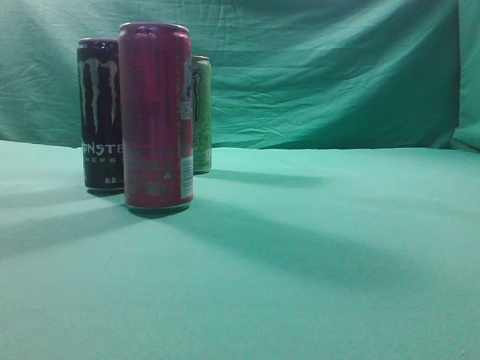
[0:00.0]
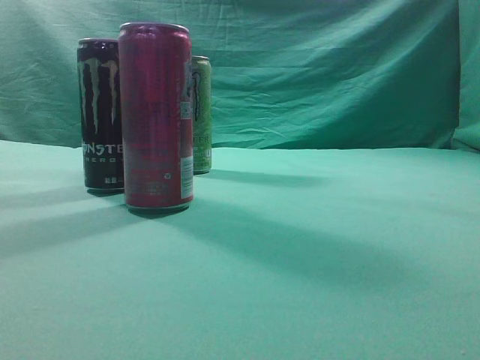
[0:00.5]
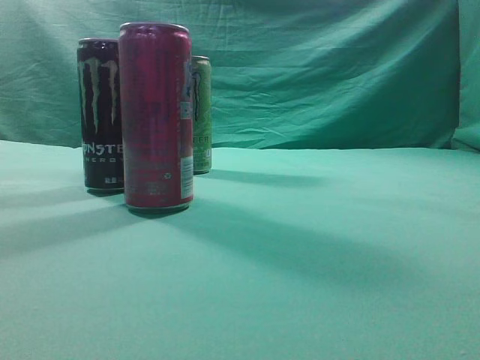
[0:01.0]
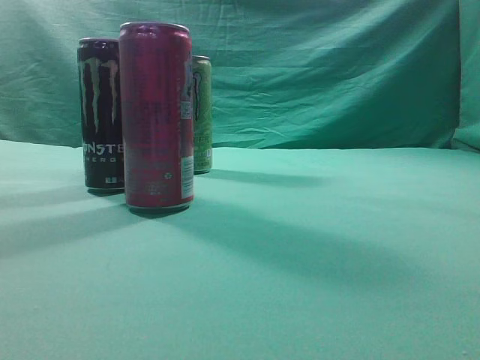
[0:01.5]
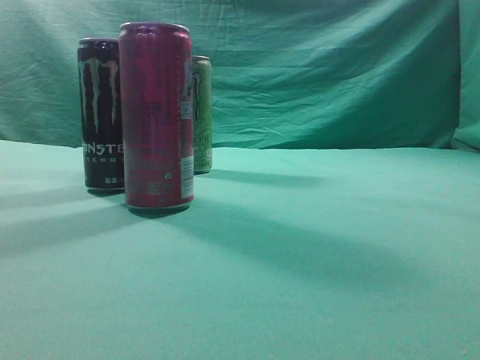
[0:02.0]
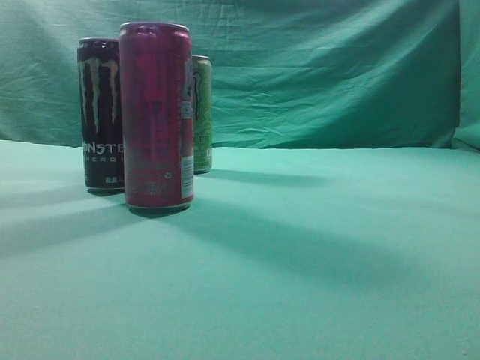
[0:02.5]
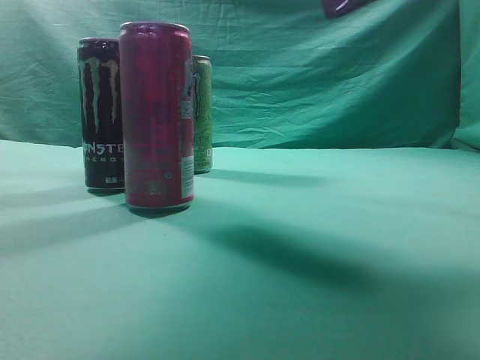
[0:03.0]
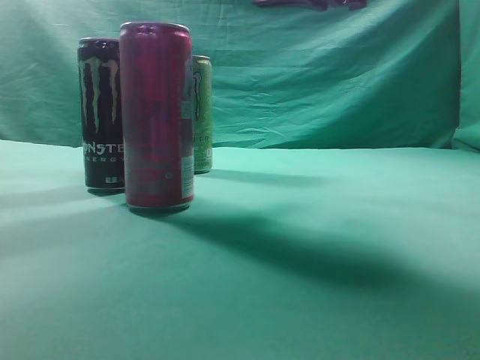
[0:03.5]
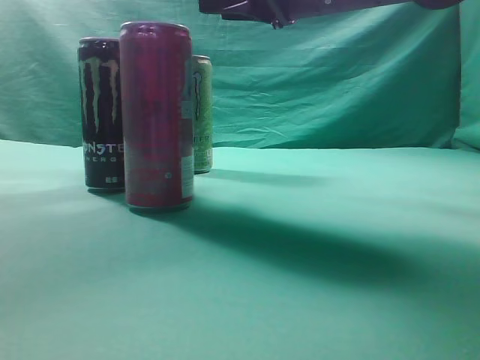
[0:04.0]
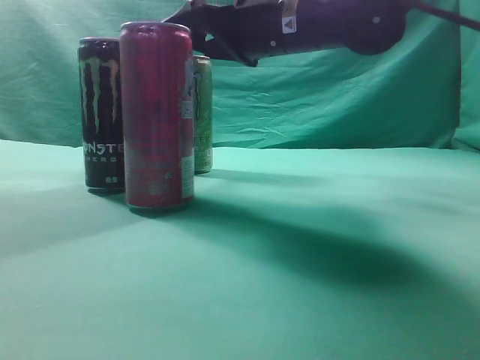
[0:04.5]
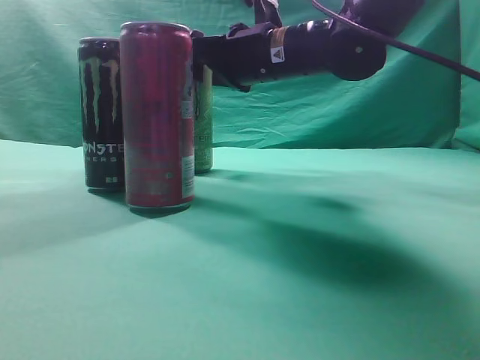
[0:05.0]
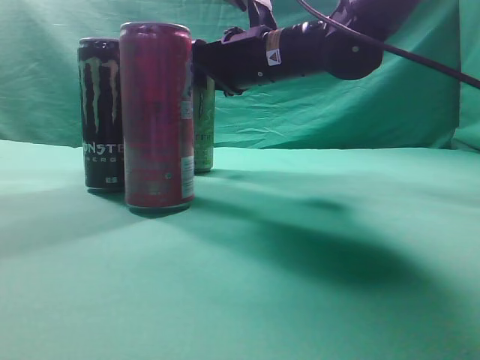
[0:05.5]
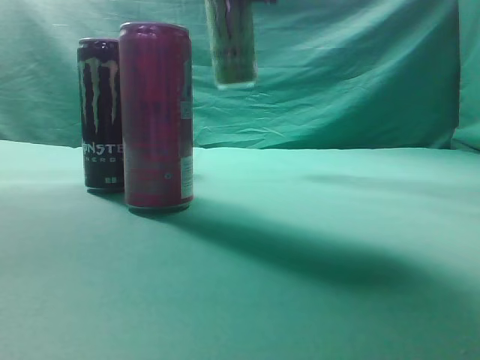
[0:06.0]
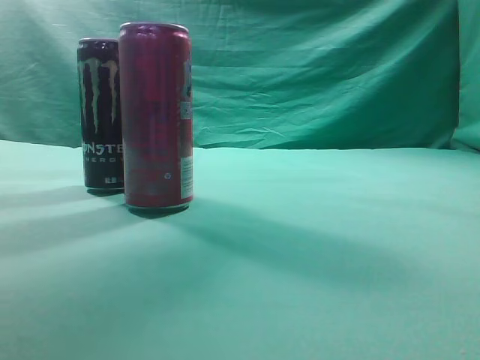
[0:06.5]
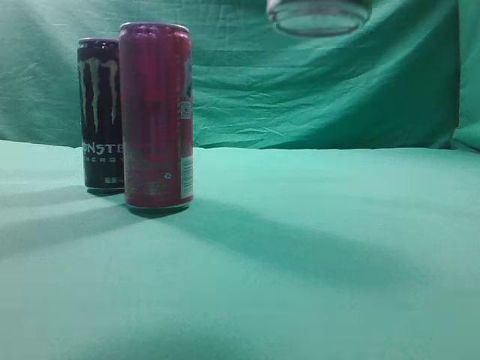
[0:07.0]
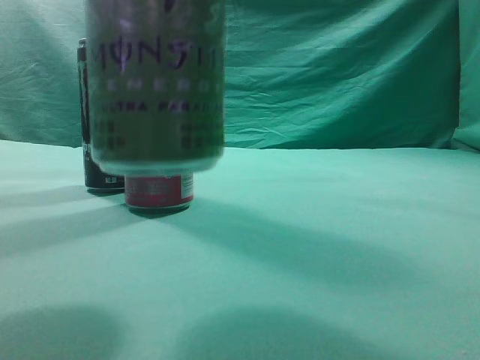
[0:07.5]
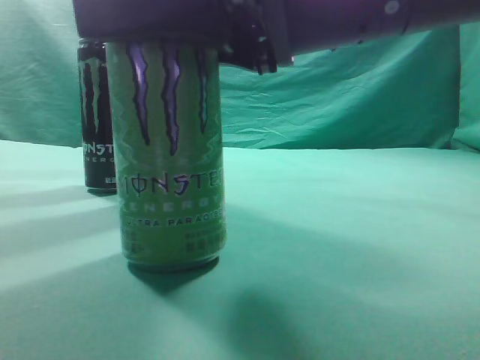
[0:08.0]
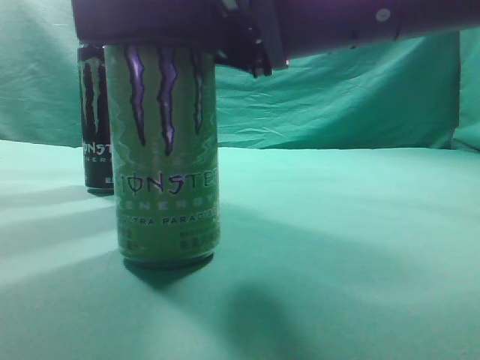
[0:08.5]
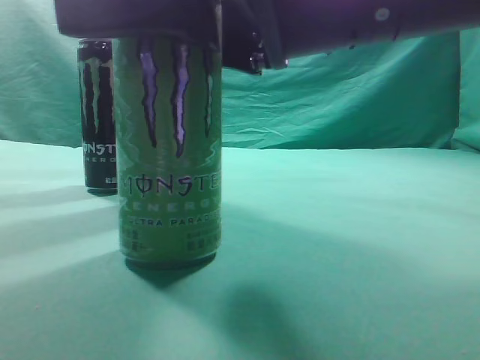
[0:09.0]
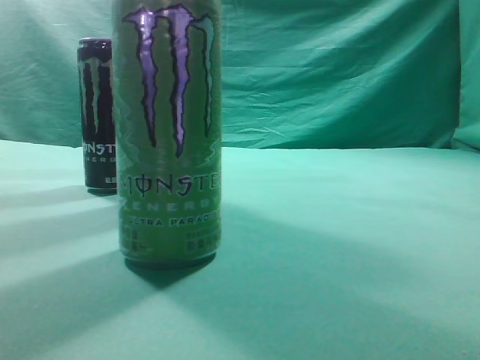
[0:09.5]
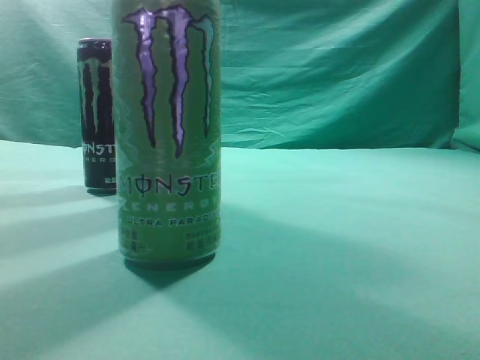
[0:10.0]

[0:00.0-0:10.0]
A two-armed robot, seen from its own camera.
Task of the whole recording: move one drink among three beverages.
Step, 0:00.0 to 0:06.0: Grasp the beverage bottle placed at the back of the desk.
Step, 0:06.5 to 0:09.5: Place the beverage bottle to the front of the table.
0:02.0 to 0:04.0: The right gripper heads forward and to the left, covering some 40 cm, and opens up.
0:04.0 to 0:06.0: The right gripper opens, then closes again.
0:06.0 to 0:08.0: The right gripper shifts about 25 cm backward and downward.
0:08.0 to 0:10.0: The right gripper travels upward and to the right by about 15 cm, and closes its fingers.
